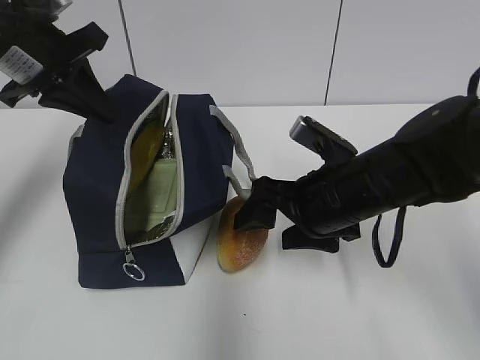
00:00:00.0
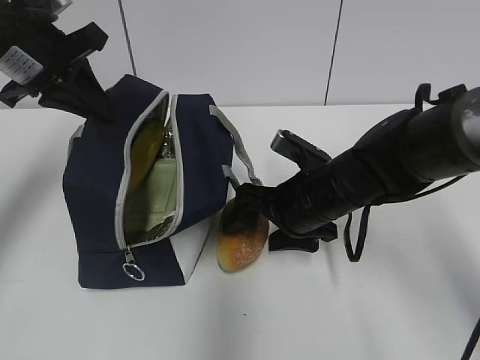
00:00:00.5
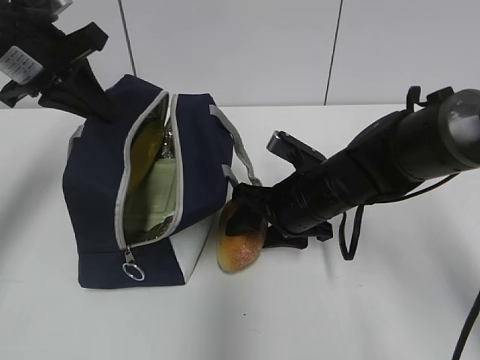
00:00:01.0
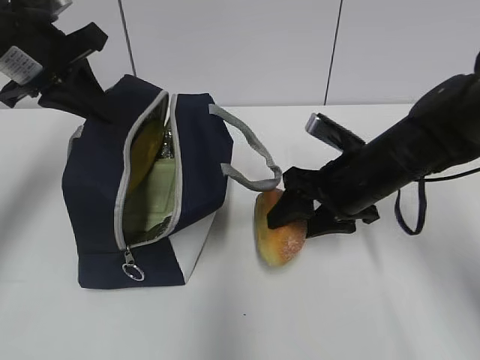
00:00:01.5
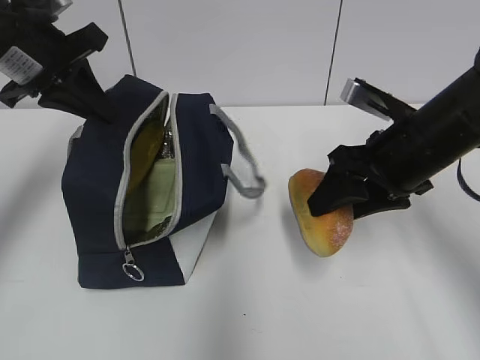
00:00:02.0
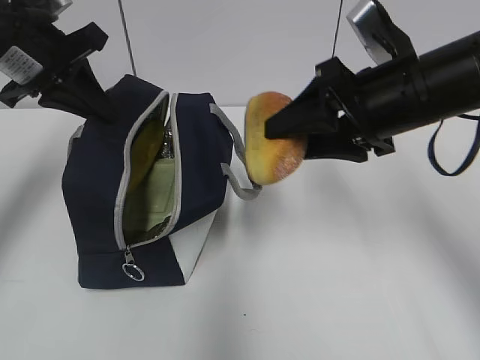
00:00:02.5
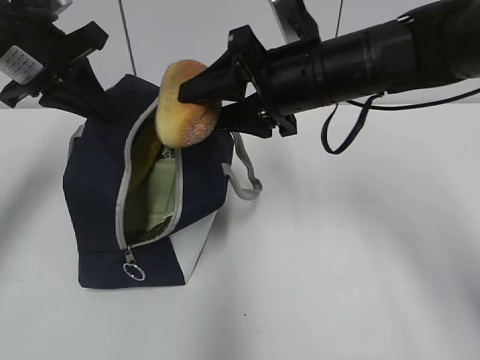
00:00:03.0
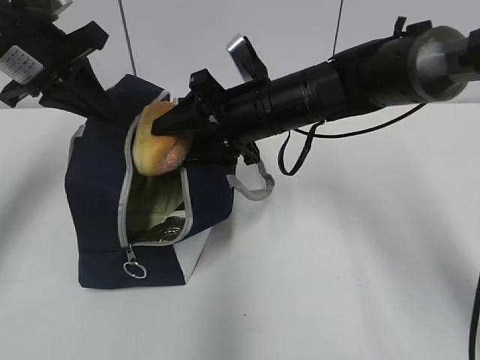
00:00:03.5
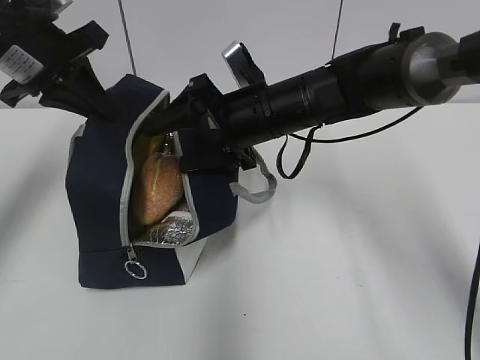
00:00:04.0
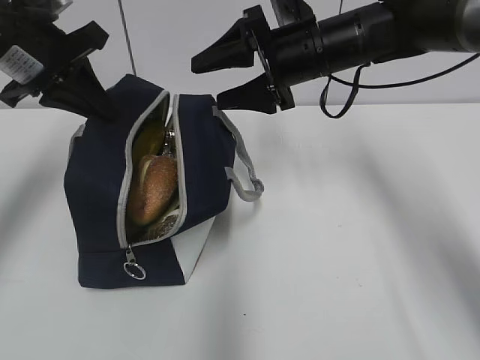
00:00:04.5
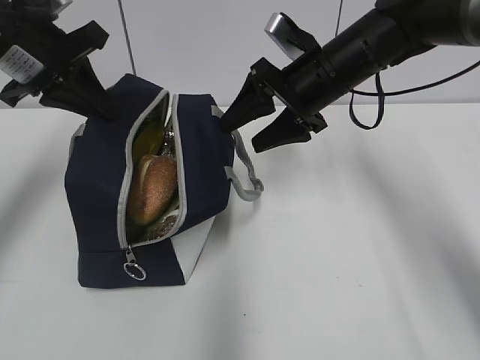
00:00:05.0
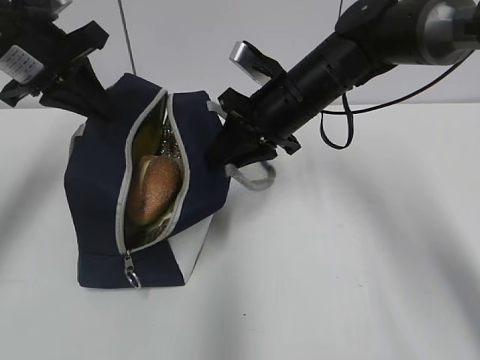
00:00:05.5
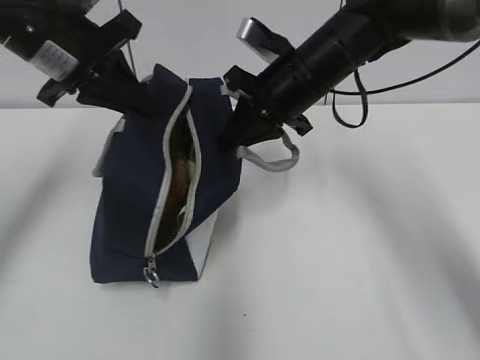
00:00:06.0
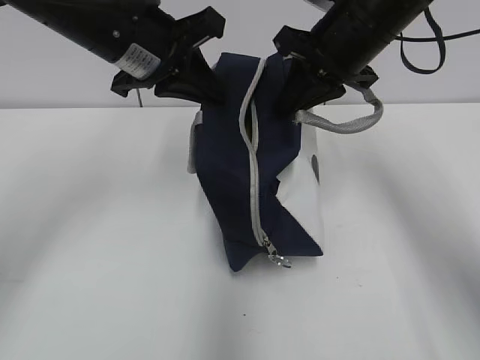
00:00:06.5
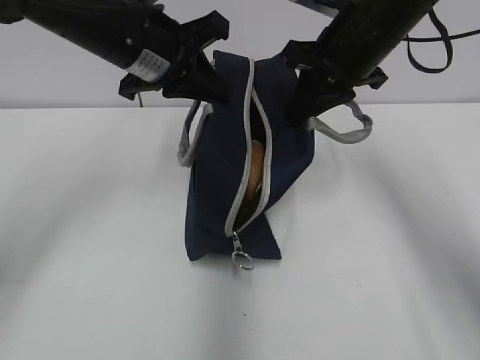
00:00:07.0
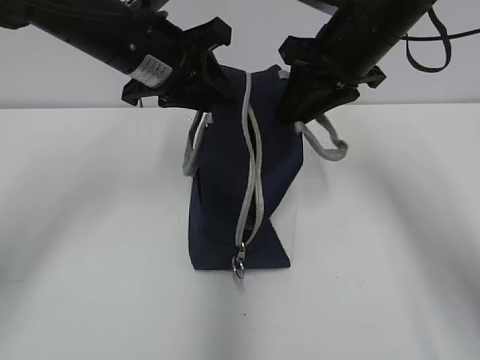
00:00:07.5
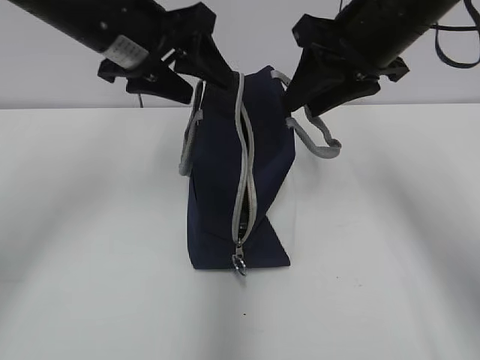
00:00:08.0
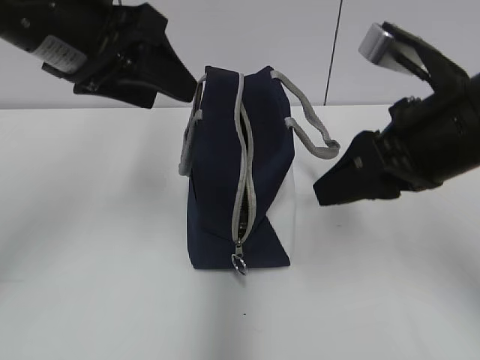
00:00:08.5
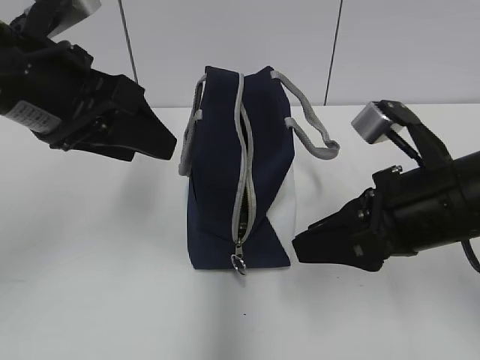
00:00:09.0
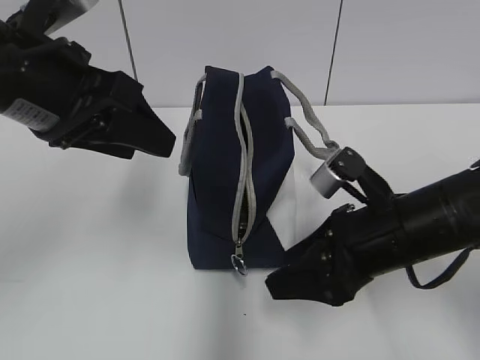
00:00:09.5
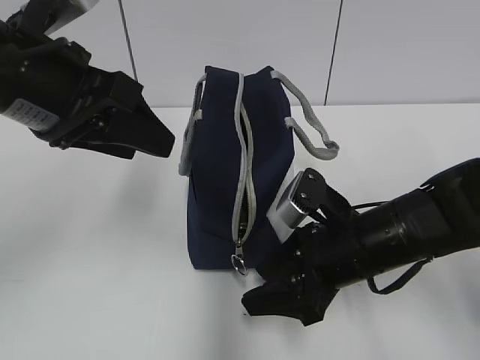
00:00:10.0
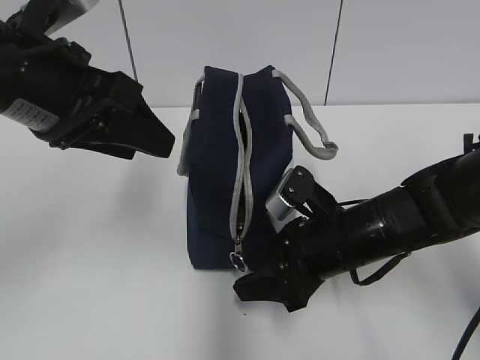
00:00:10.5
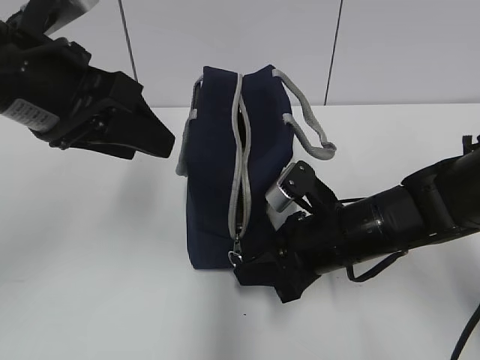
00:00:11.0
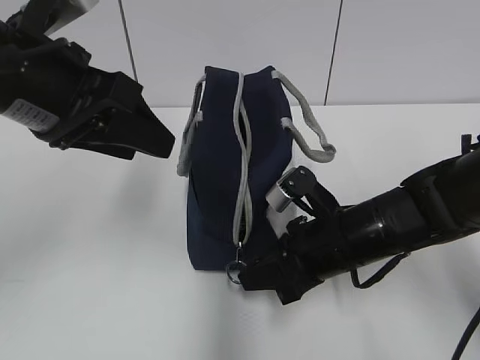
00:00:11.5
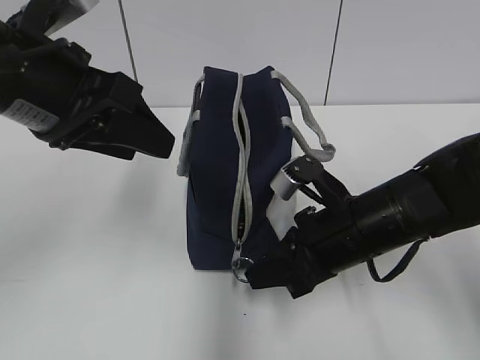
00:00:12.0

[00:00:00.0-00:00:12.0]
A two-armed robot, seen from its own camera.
00:00:00.0 to 00:00:02.0: The right gripper heads to the right, covering roughly 10 cm.
00:00:02.0 to 00:00:04.0: The right gripper shifts some 15 cm to the left and forward.
00:00:04.0 to 00:00:06.0: The right gripper changes place by about 5 cm, and closes its fingers.
00:00:06.0 to 00:00:08.0: The left gripper heads to the right, covering roughly 5 cm, and opens its fingers. Meanwhile the right gripper shifts about 10 cm upward and to the right, and opens.
00:00:08.0 to 00:00:10.0: The right gripper is displaced downward and backward by about 20 cm; the left gripper moves backward, roughly 10 cm.
00:00:10.0 to 00:00:12.0: The right gripper closes up.

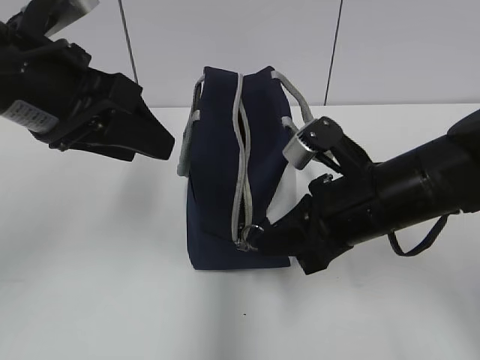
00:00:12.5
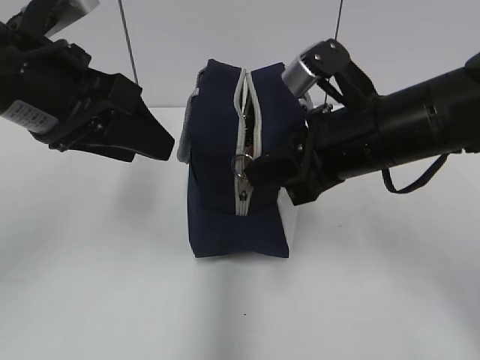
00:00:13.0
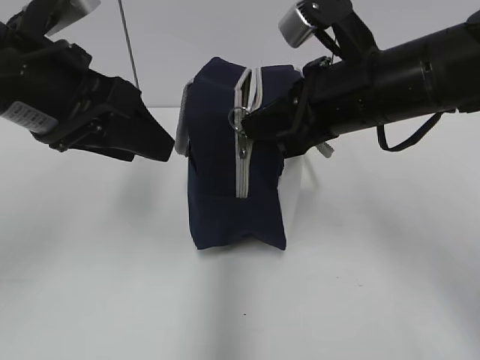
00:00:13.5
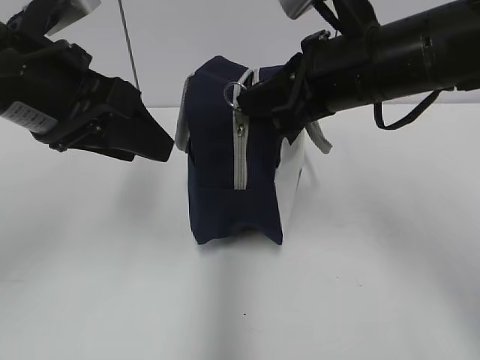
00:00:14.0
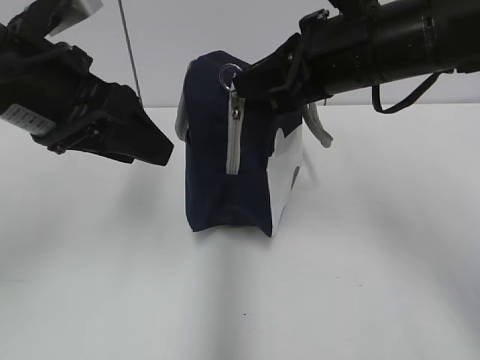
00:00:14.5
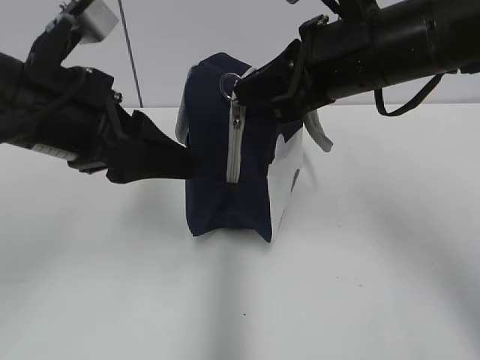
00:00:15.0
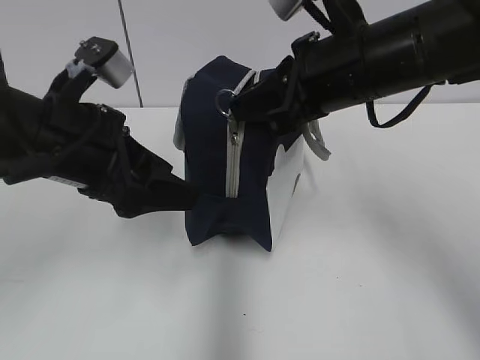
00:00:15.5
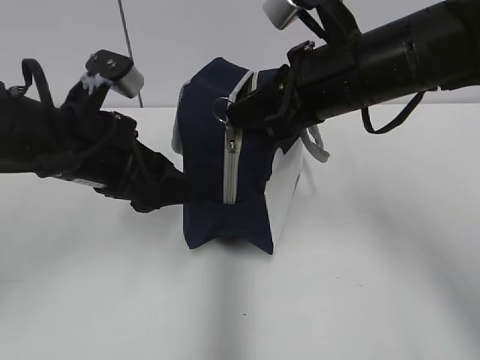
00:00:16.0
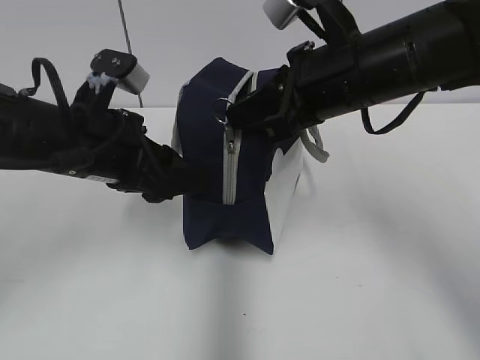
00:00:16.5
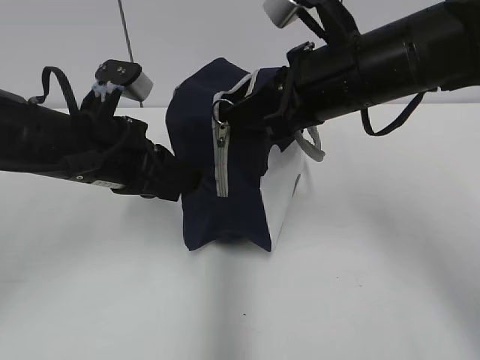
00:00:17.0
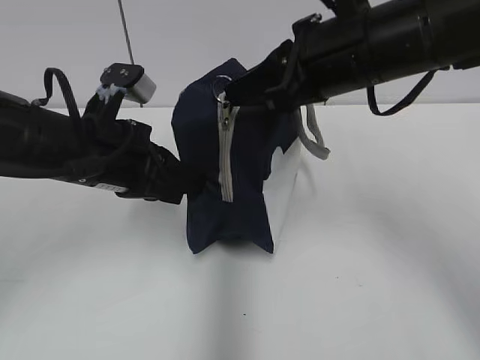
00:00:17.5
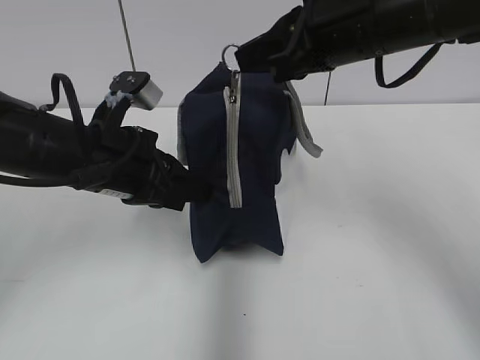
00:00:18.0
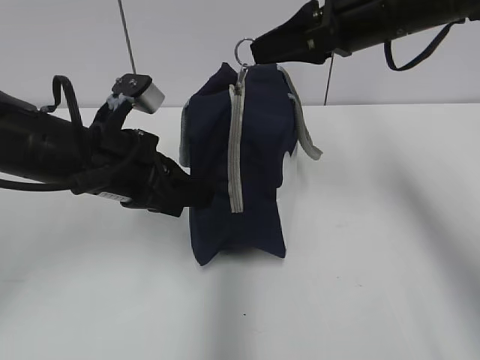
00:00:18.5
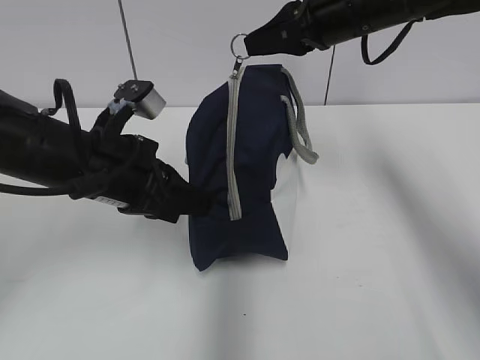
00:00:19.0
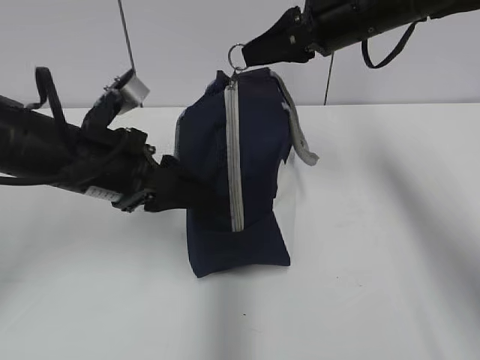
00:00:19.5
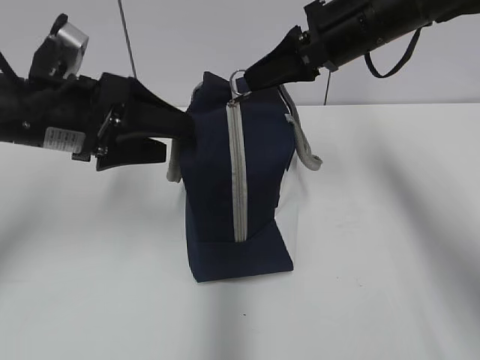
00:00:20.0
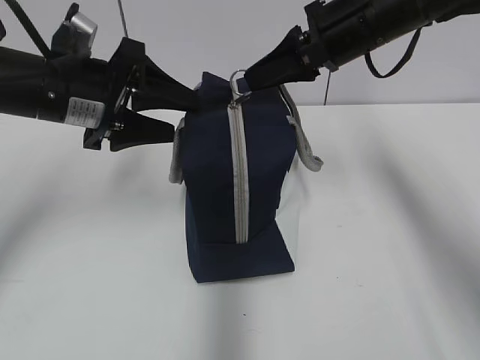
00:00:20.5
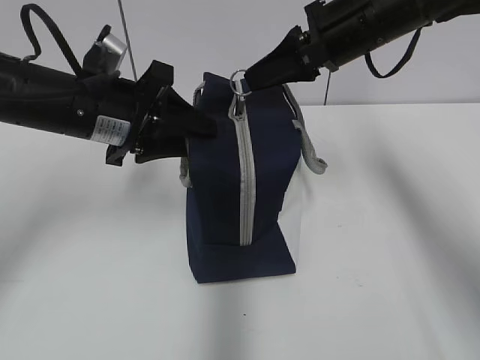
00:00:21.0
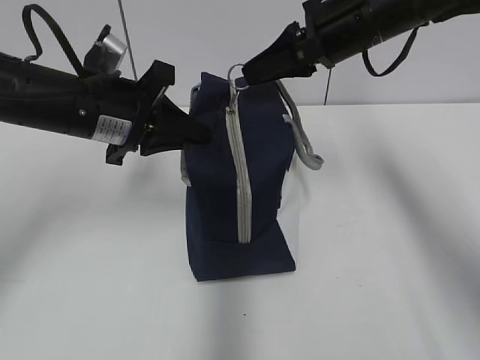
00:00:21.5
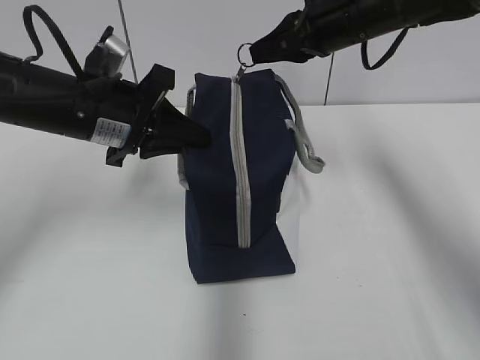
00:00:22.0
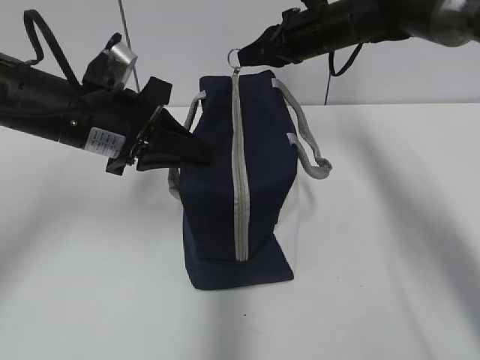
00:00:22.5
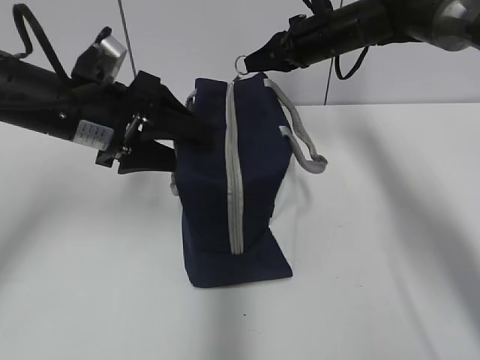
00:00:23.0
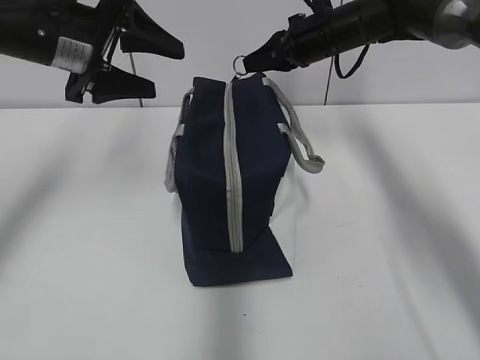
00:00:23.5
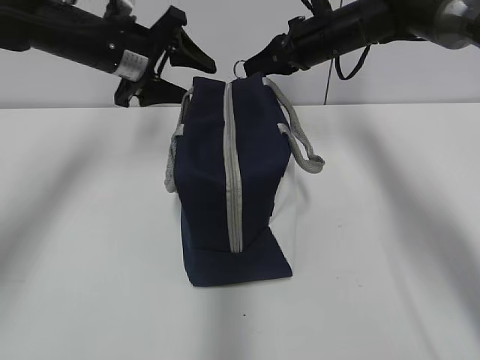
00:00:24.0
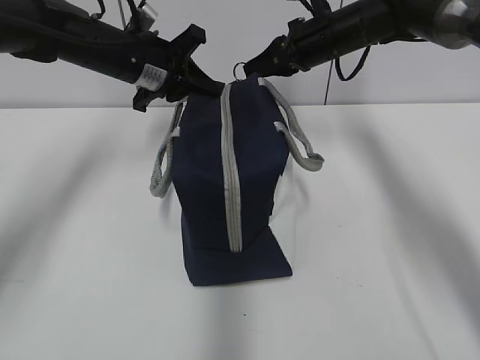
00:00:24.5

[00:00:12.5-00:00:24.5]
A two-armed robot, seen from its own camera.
00:00:12.5 to 00:00:14.5: The right gripper is displaced upward by approximately 10 cm.
00:00:14.5 to 00:00:16.5: The left gripper shifts about 10 cm downward.
00:00:16.5 to 00:00:18.5: The right gripper changes place by roughly 5 cm. Meanwhile the left gripper closes.
00:00:18.5 to 00:00:20.5: The left gripper changes place by about 10 cm, and opens its fingers.
00:00:20.5 to 00:00:22.5: The left gripper closes. The right gripper moves forward, some 10 cm.
00:00:22.5 to 00:00:24.5: The left gripper is displaced forward by approximately 15 cm, and opens, then closes again.

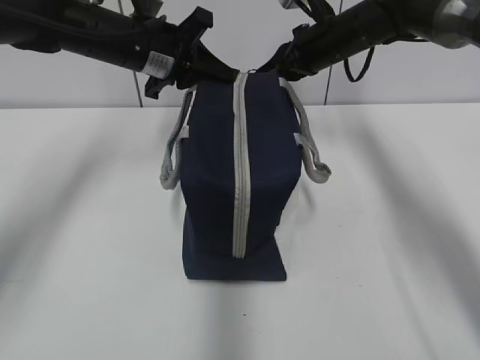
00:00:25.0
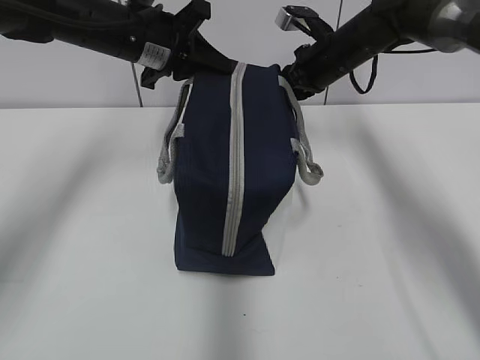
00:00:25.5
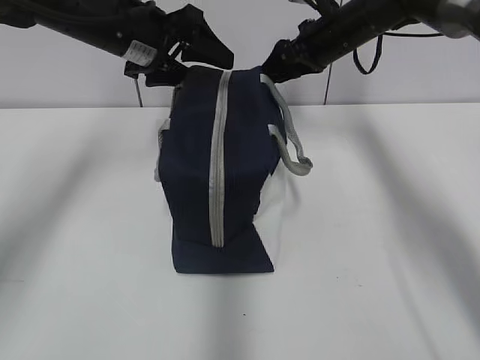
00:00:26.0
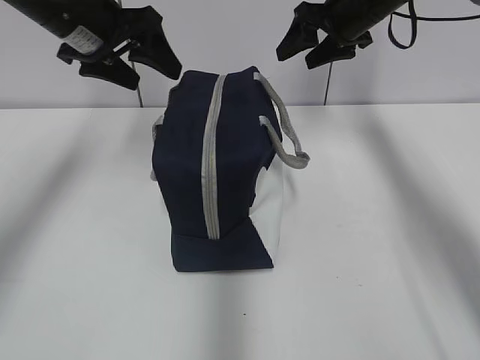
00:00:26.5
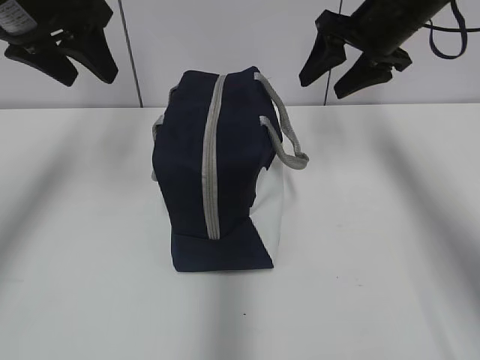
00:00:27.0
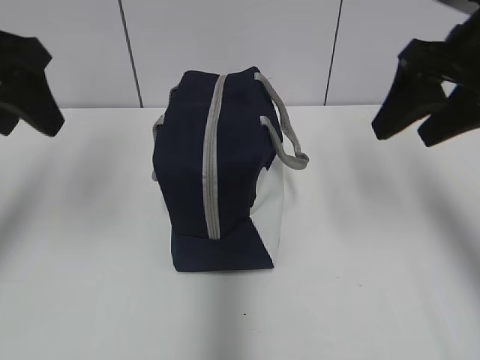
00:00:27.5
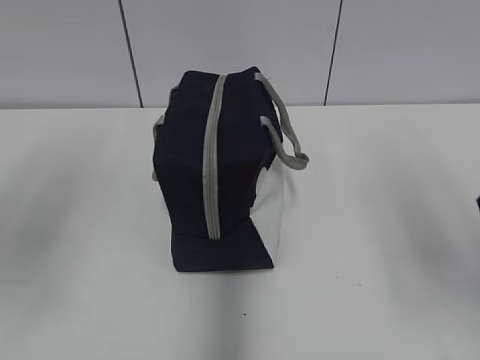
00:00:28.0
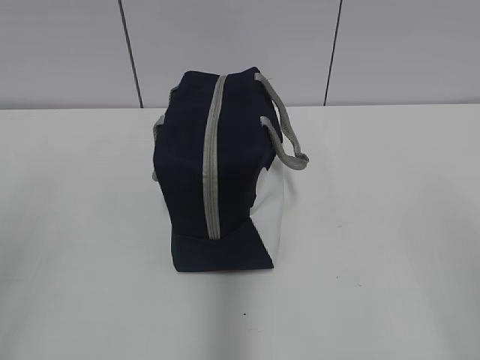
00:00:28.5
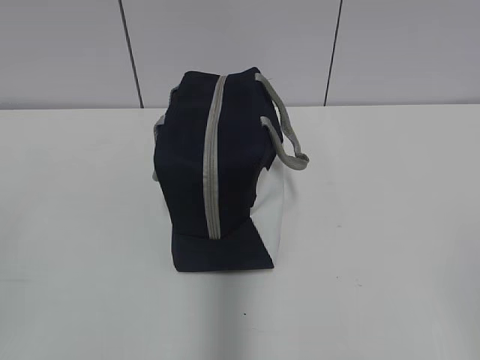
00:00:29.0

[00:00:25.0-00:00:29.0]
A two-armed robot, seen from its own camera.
00:00:25.0 to 00:00:27.0: The right gripper shifts some 10 cm backward and upward, and opens. The left gripper heads upward, to the left and backward, covering approximately 15 cm, and opens up.
00:00:27.0 to 00:00:29.0: Both grippers travel together backward, about 40 cm.
